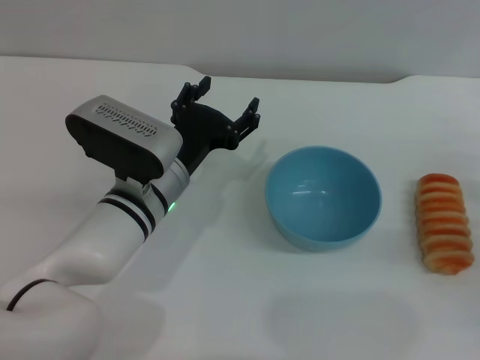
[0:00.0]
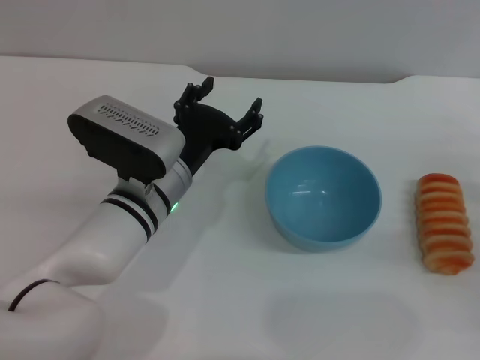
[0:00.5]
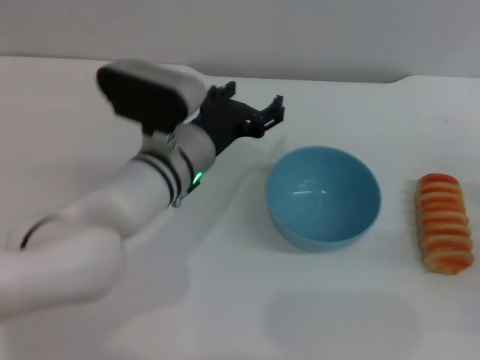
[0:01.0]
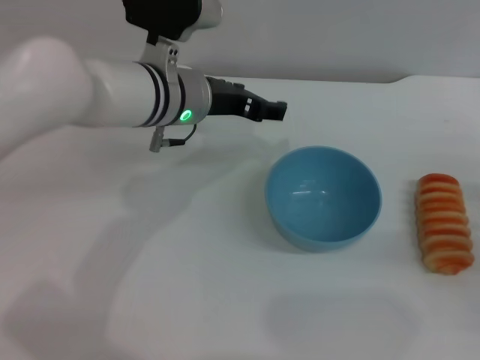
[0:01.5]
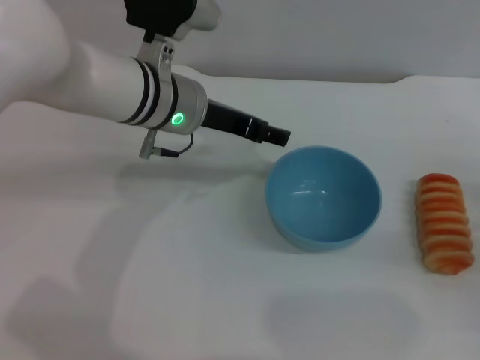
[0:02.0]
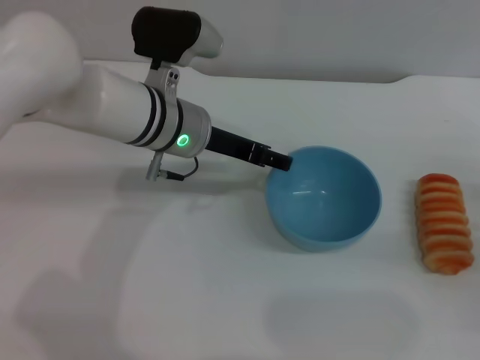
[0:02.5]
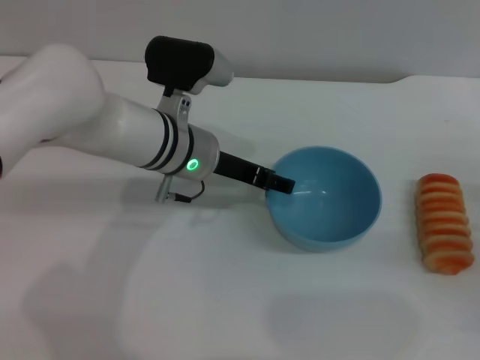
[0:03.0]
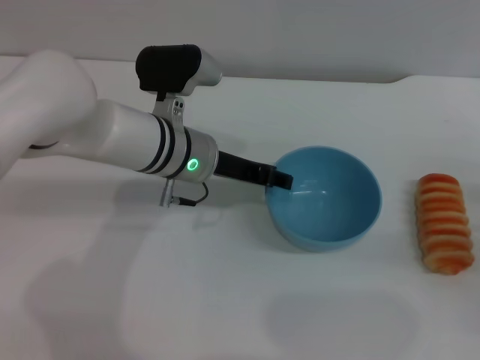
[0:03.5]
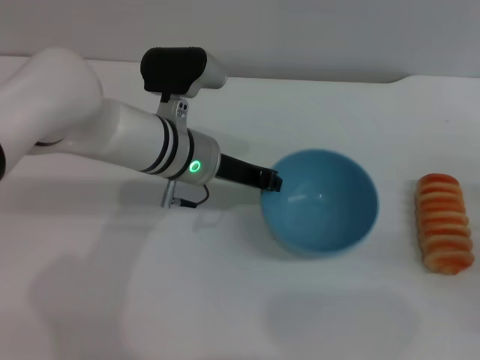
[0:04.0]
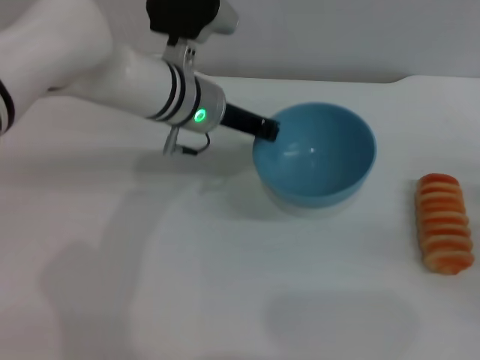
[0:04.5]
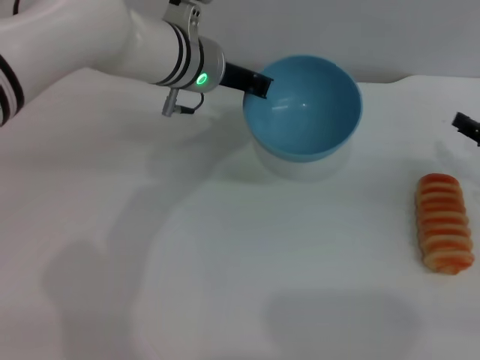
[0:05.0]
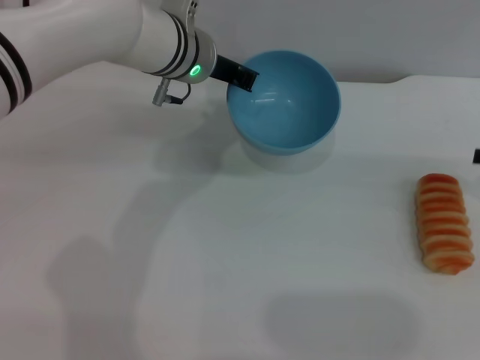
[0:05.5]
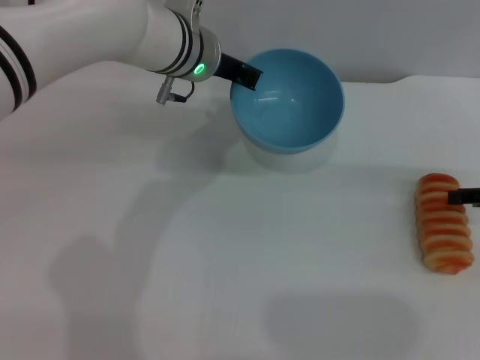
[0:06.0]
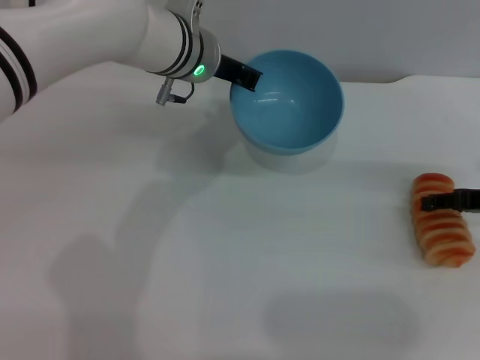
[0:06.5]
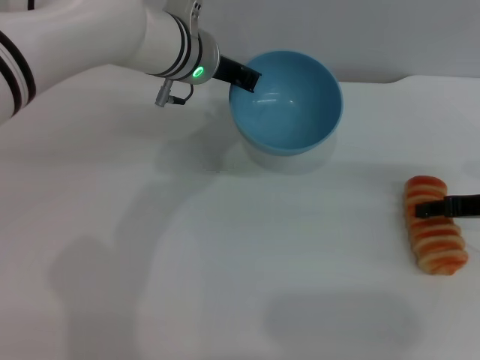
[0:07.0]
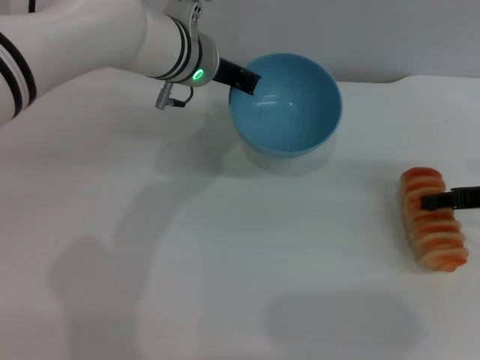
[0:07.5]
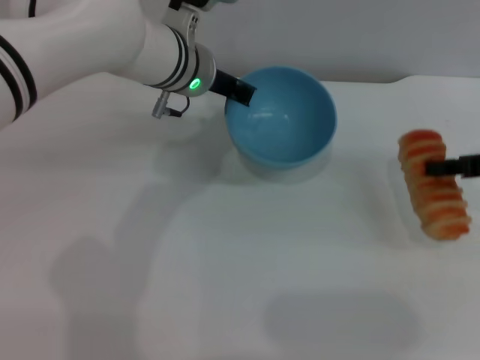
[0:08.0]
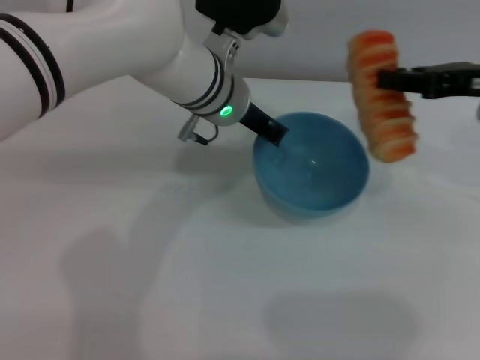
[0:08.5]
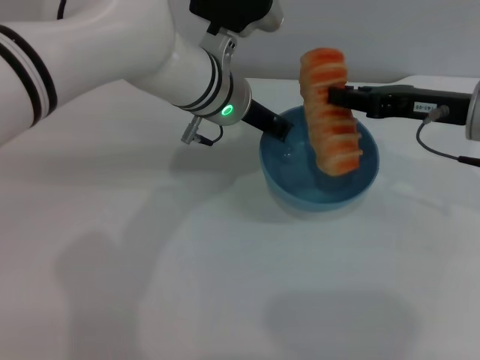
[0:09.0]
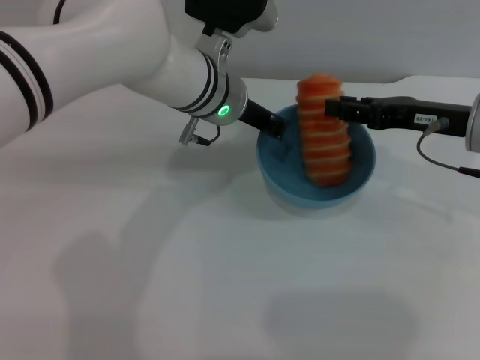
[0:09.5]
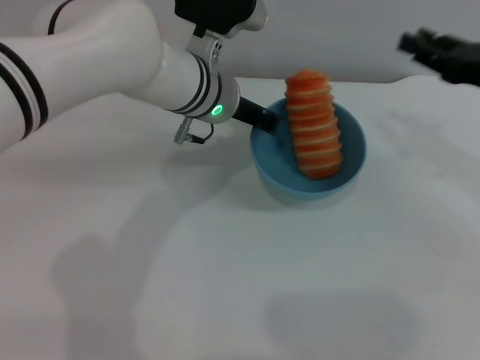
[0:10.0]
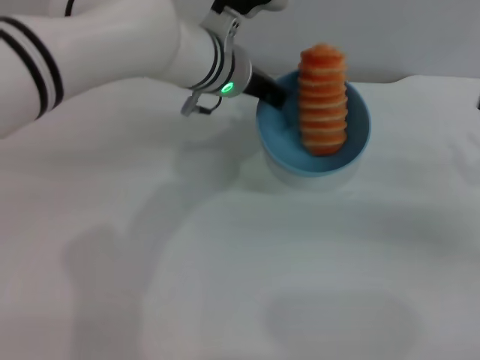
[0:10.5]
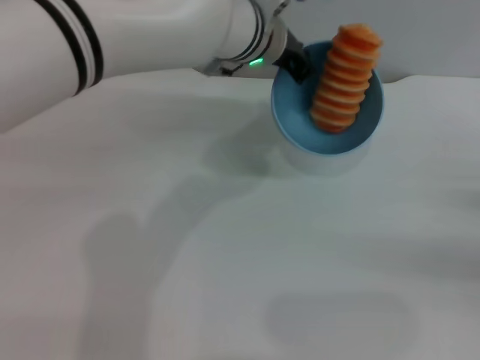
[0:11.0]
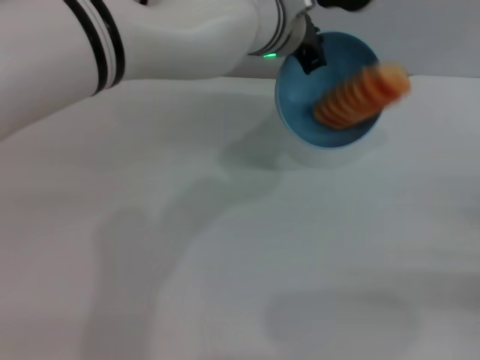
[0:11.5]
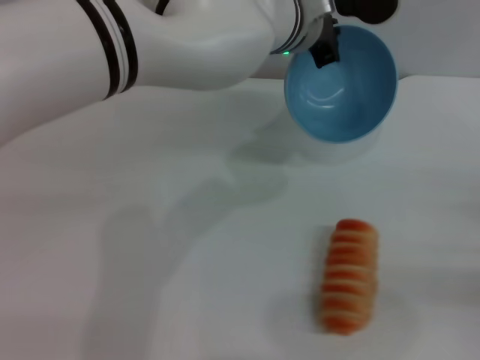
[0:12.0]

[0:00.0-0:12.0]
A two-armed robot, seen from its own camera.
Task of the whole recording: put the bread into the blue bowl and pour it out repeatedly.
Step, 0:00.0 to 0:04.5: Pick up the bowl with the left gripper.
Step, 0:05.0 to 0:08.0: Pick up the bread with the right gripper.
Step, 0:08.5 to 0:10.0: Place the bread into the bowl.
0:00.0 to 0:02.0: The left gripper heads upward and forward, covering some 10 cm.
0:02.0 to 0:04.0: The left gripper moves downward, some 5 cm, and closes up.
0:04.0 to 0:06.0: Both grippers move upward and forward, about 10 cm. The left gripper closes its fingers.
0:06.0 to 0:08.0: The right gripper changes place by some 5 cm, and closes up.
0:08.0 to 0:10.0: The right gripper reaches about 10 cm to the left, then returns.
0:10.0 to 0:12.0: The left gripper heads to the right and upward, covering some 10 cm, while the right gripper moves backward, downward and to the right, roughly 20 cm.

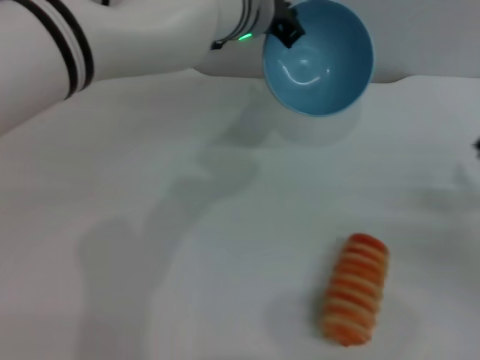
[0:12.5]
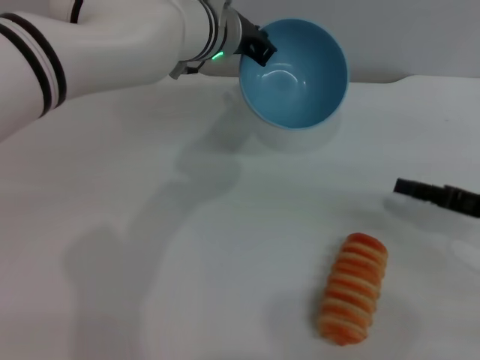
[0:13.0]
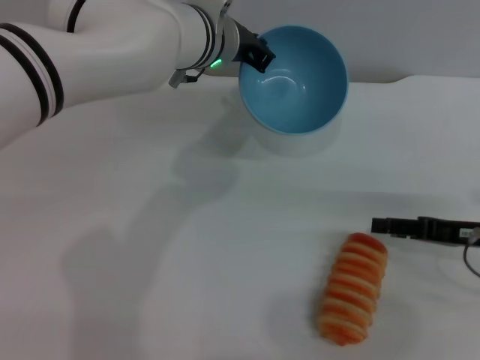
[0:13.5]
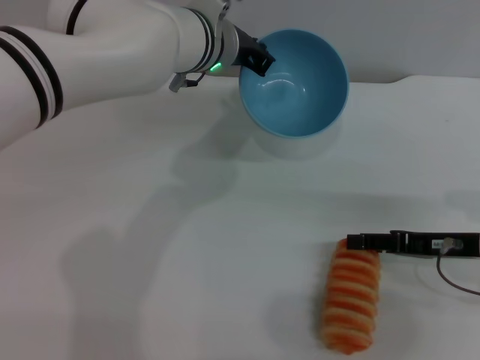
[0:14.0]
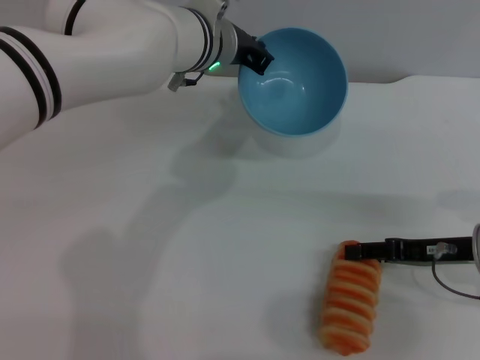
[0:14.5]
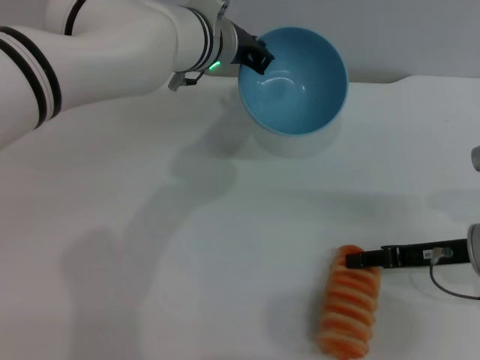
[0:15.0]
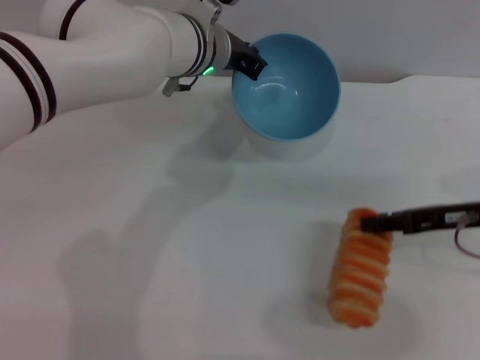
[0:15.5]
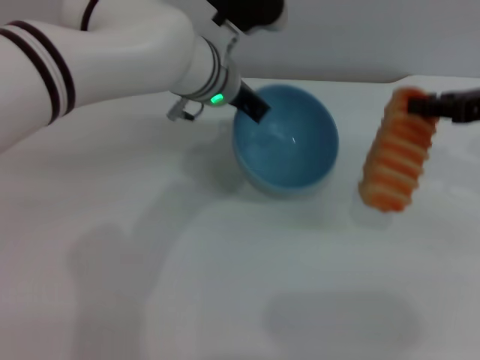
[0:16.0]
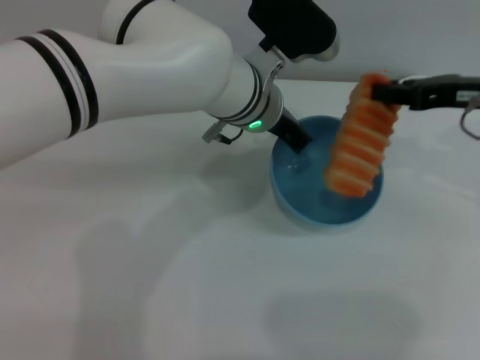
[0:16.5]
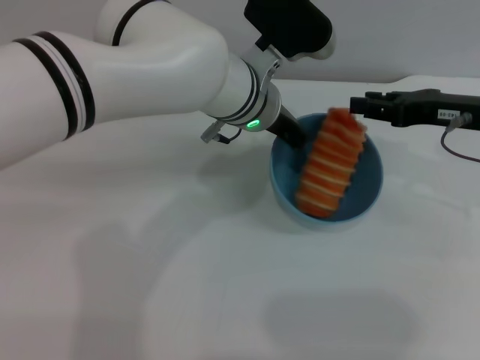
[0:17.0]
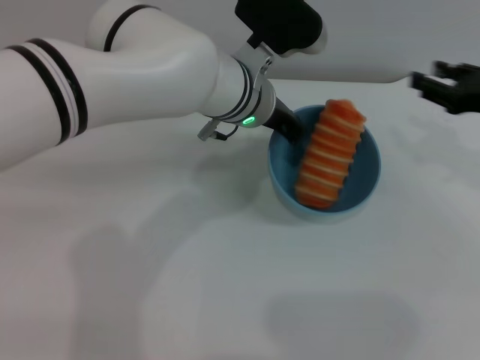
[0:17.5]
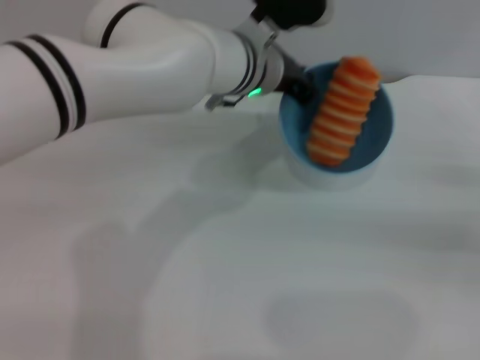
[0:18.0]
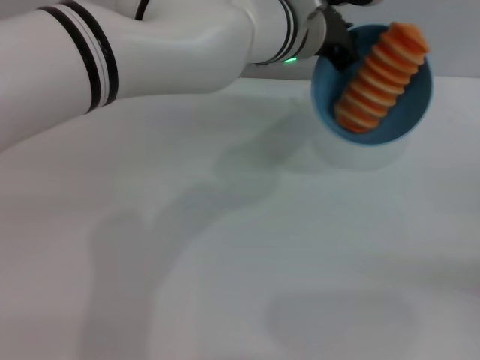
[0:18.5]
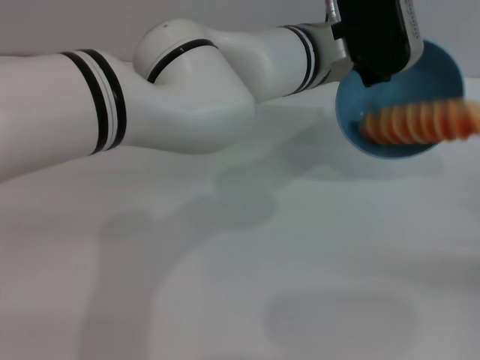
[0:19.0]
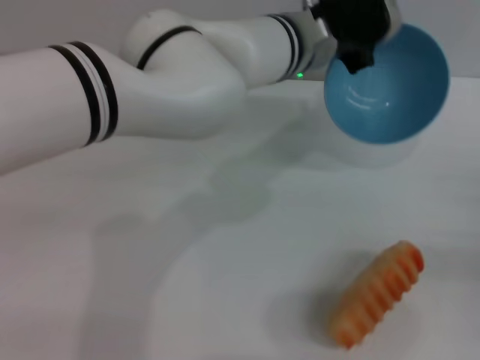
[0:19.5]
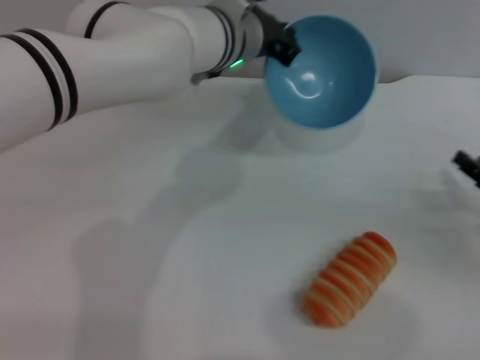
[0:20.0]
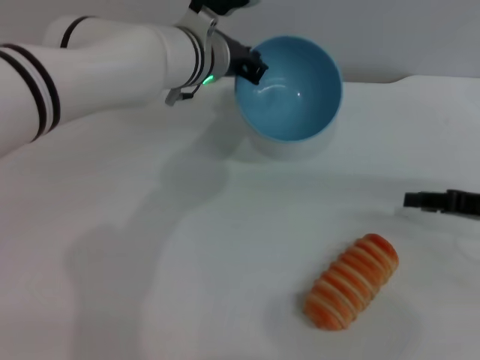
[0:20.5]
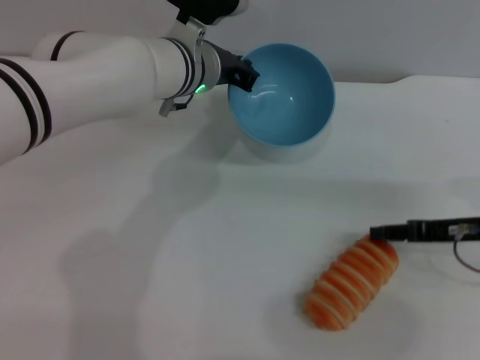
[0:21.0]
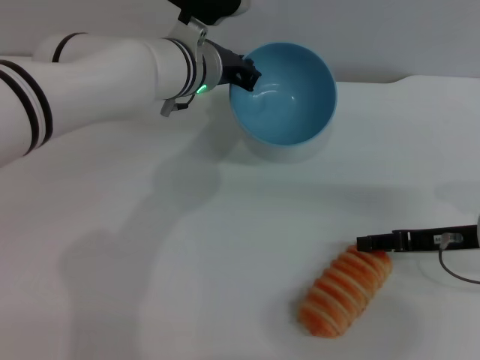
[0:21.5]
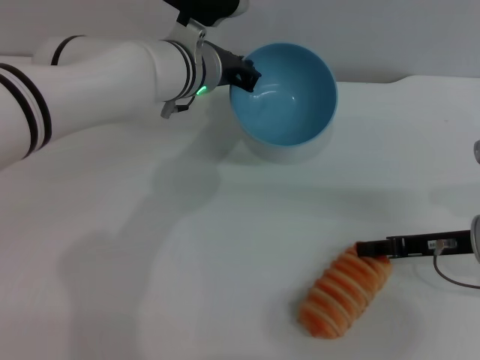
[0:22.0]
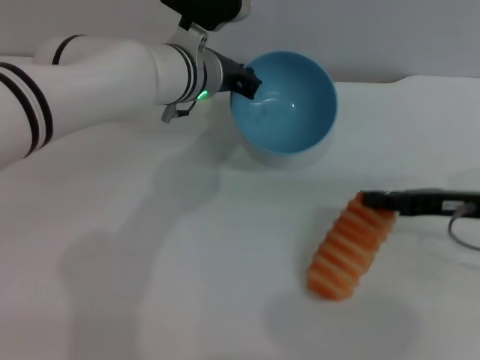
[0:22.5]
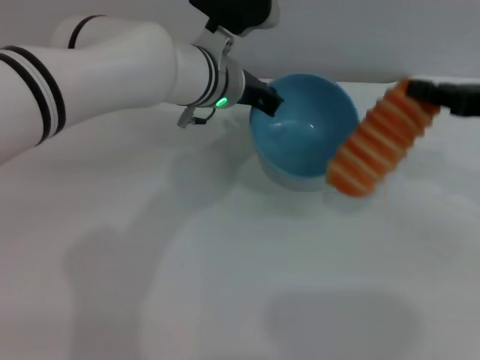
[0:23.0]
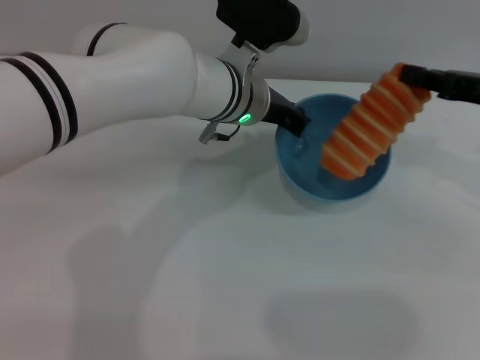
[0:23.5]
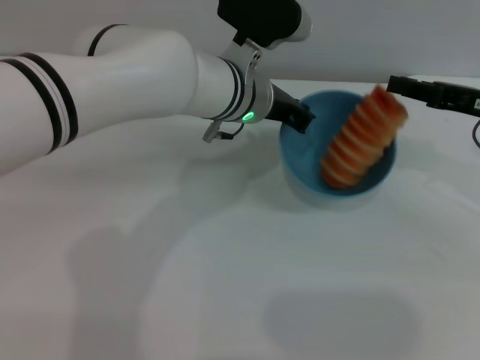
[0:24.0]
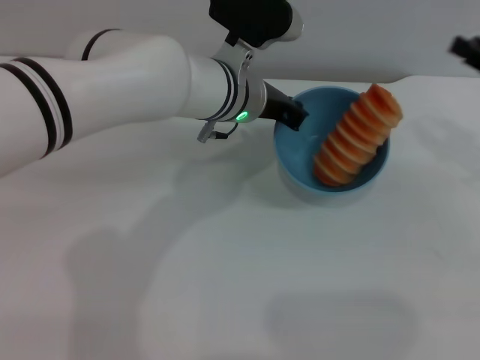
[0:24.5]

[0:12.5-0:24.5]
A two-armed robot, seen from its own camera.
Task of the whole recording: put the bread into the blue bowl and pour it out repeatedly.
Step, 0:12.5 to 0:15.5: Pick up the bread with the right gripper.
Step, 0:16.0 to 0:17.0: Place the bread into the bowl.
Step, 0:17.5 to 0:19.0: Pour the bread out of the bowl.
Step, 0:20.0 to 0:22.5: Pick up the bread with the right gripper.
Step, 0:23.0 to 0:24.0: Place the bread into the bowl.
0:12.5 to 0:14.5: The right gripper heads to the left, covering approximately 5 cm.
0:14.5 to 0:16.5: The right gripper heads upward and forward, covering about 15 cm, and closes its fingers. Meanwhile the left gripper moves about 5 cm.
0:16.5 to 0:18.5: The left gripper changes place by about 5 cm, while the right gripper is displaced backward, downward and to the right by some 25 cm, and opens its fingers.
0:18.5 to 0:20.5: The right gripper goes some 10 cm forward and to the left; the left gripper moves to the left, some 10 cm.
0:20.5 to 0:22.5: The right gripper closes up.
0:22.5 to 0:24.5: The right gripper moves upward and to the right, approximately 10 cm, and opens its fingers.

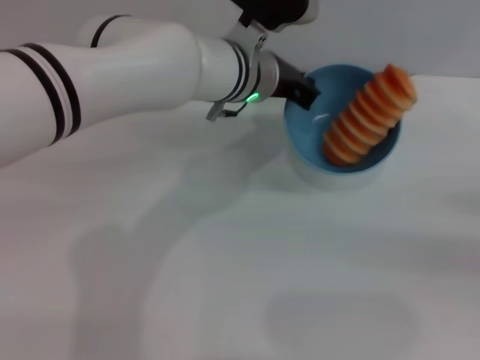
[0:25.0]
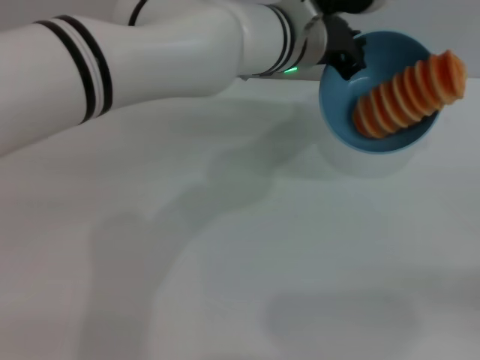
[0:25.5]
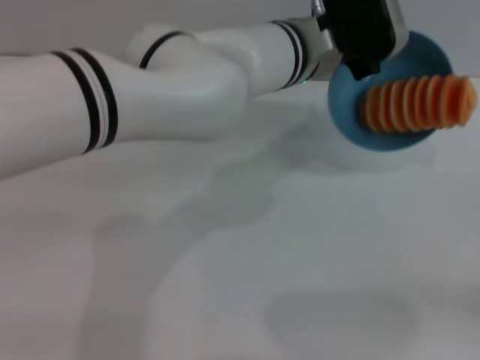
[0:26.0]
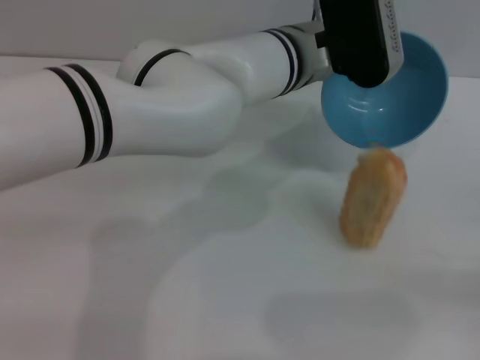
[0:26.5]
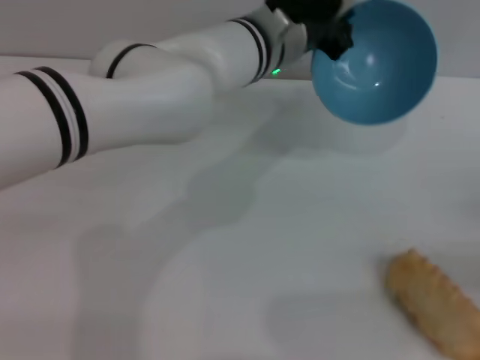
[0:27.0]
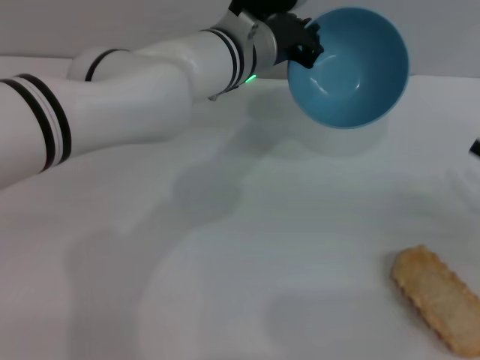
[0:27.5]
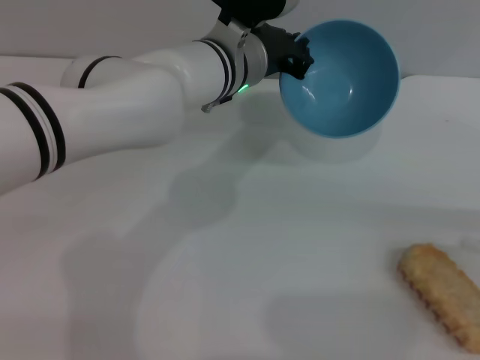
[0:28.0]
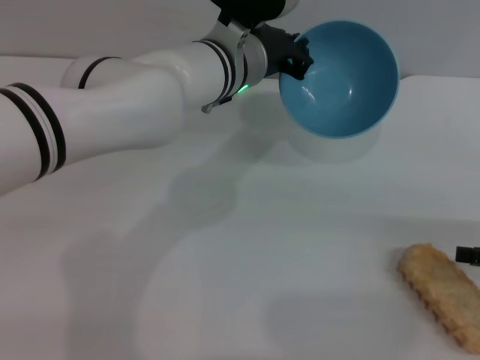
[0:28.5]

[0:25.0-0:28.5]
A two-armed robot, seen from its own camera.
Task of the whole recording: put the bread into the blue bowl and pour it out repeatedly.
Step, 0:25.0 to 0:26.5: Pour the bread out of the bowl.
0:25.0 to 0:27.0: The right gripper goes some 5 cm downward.
